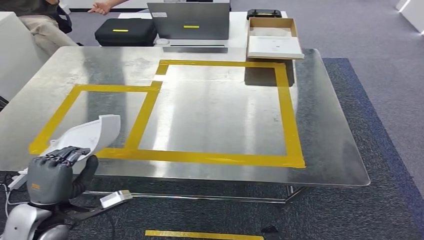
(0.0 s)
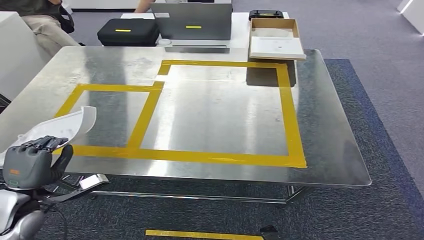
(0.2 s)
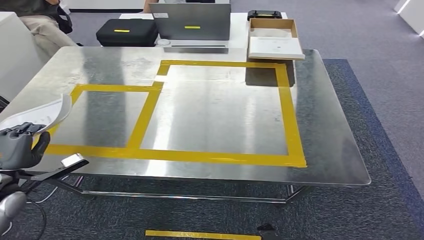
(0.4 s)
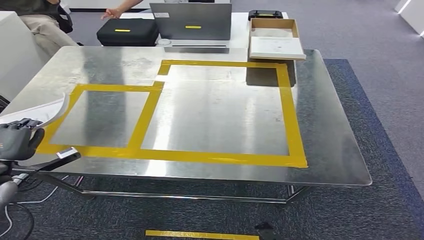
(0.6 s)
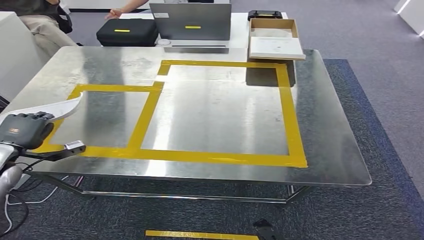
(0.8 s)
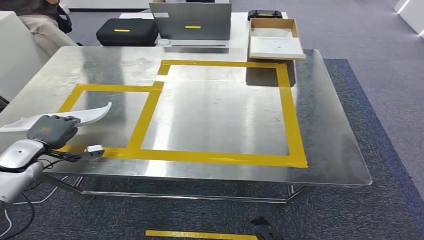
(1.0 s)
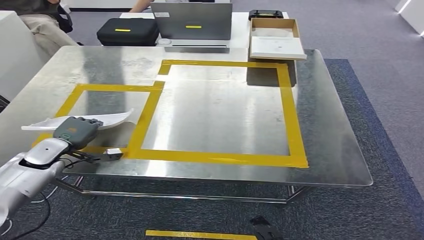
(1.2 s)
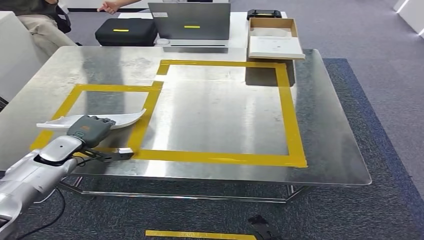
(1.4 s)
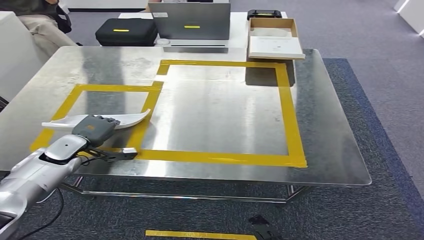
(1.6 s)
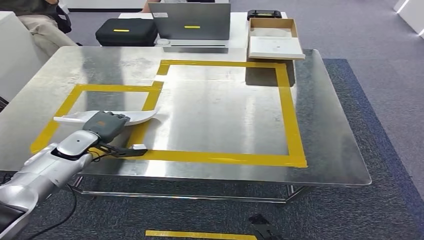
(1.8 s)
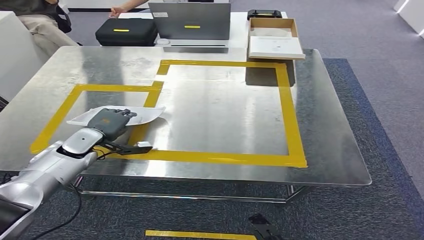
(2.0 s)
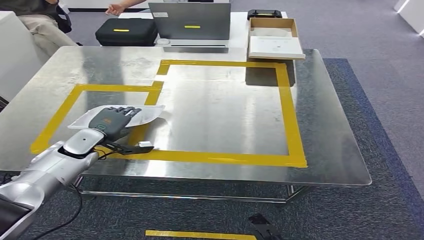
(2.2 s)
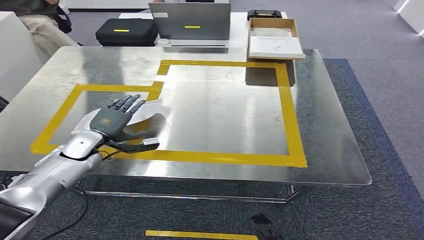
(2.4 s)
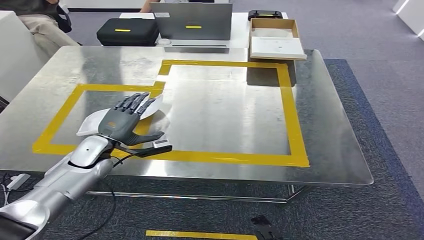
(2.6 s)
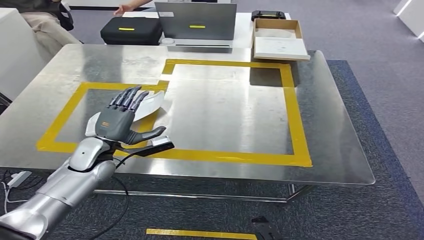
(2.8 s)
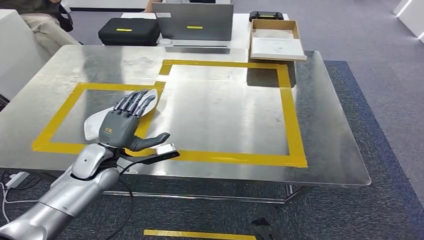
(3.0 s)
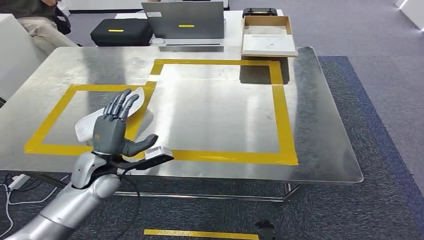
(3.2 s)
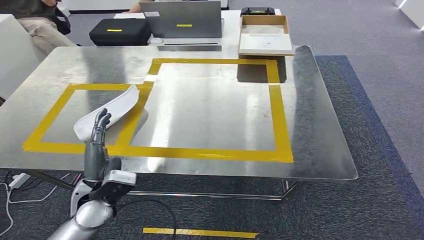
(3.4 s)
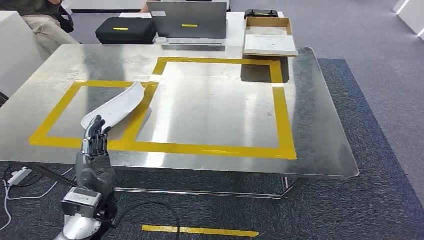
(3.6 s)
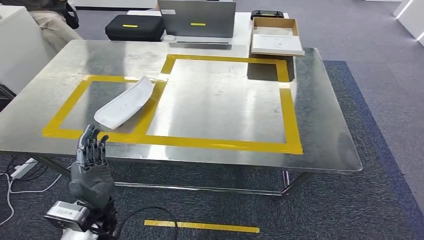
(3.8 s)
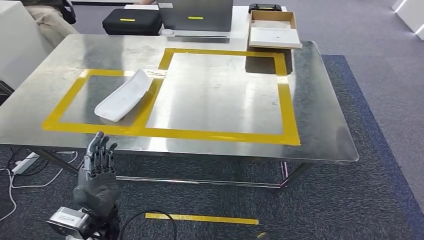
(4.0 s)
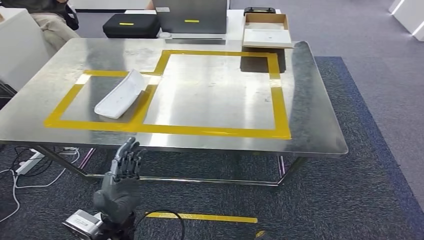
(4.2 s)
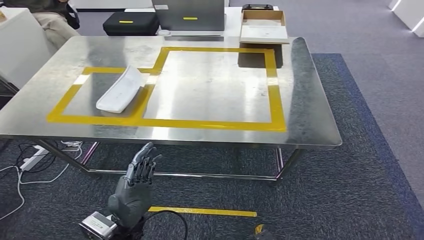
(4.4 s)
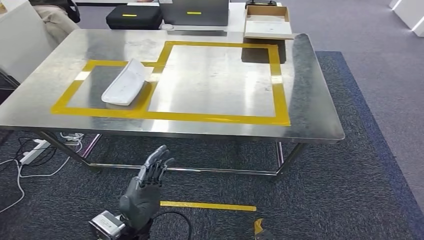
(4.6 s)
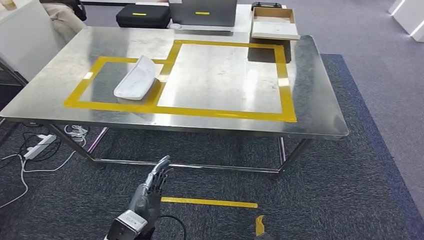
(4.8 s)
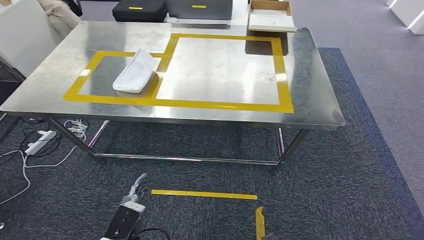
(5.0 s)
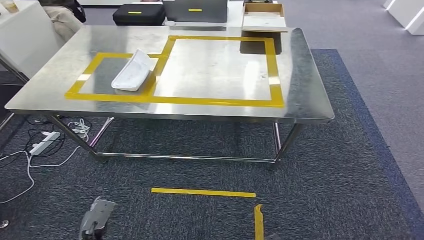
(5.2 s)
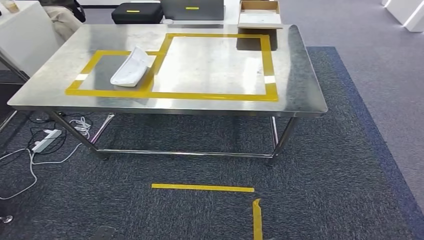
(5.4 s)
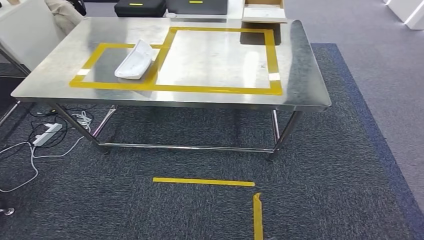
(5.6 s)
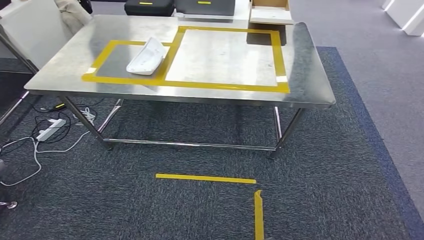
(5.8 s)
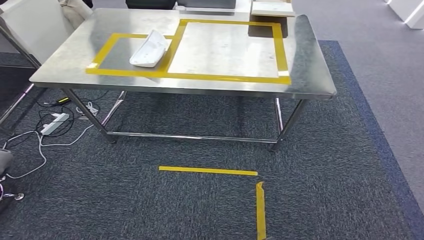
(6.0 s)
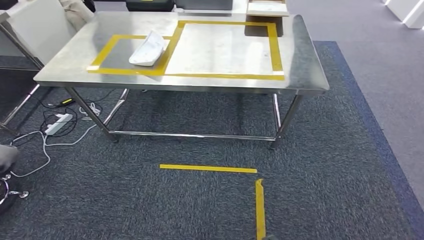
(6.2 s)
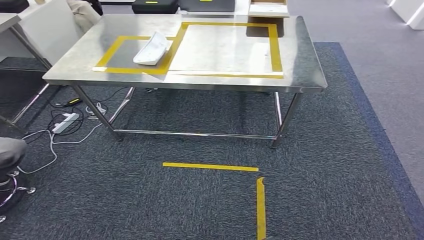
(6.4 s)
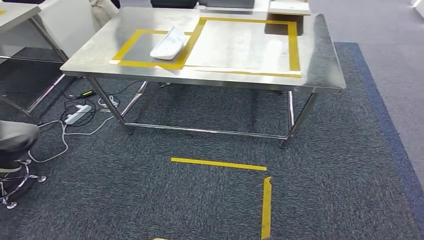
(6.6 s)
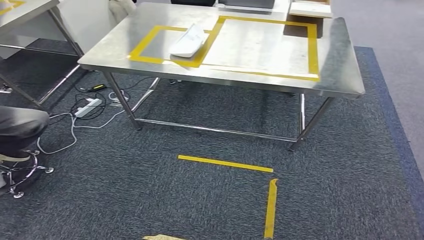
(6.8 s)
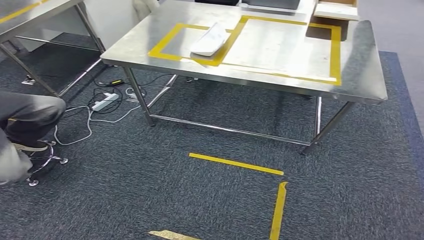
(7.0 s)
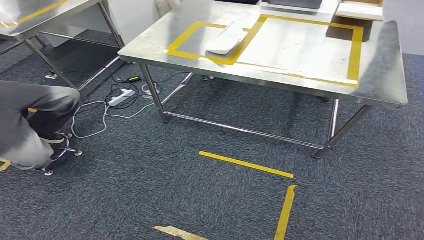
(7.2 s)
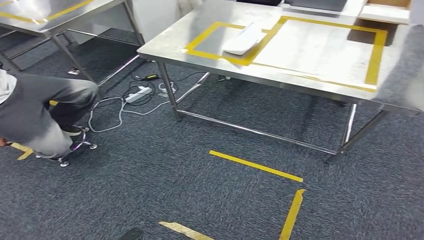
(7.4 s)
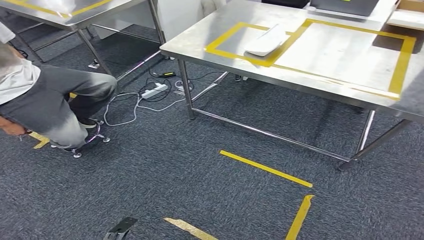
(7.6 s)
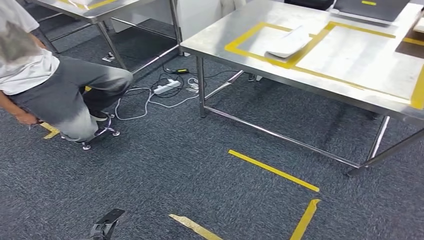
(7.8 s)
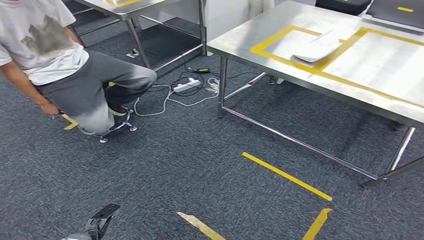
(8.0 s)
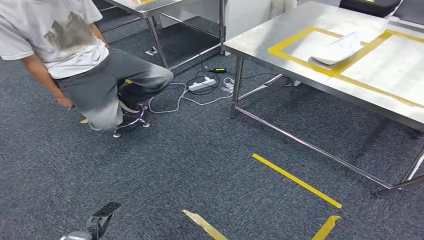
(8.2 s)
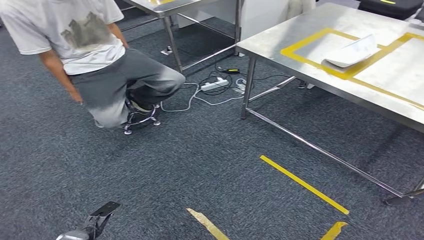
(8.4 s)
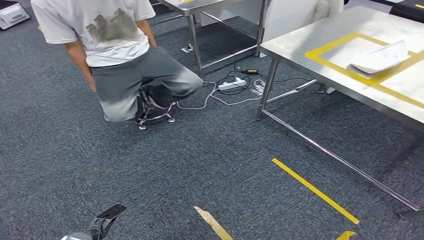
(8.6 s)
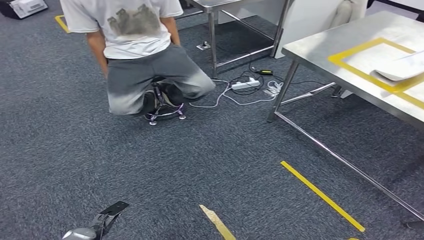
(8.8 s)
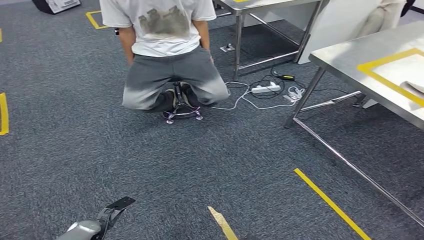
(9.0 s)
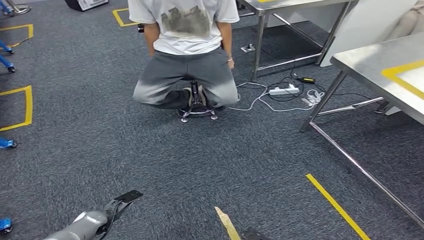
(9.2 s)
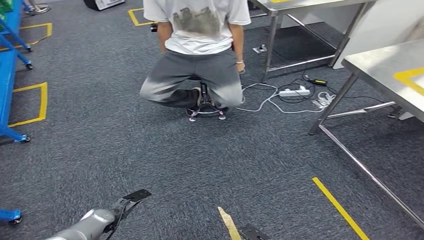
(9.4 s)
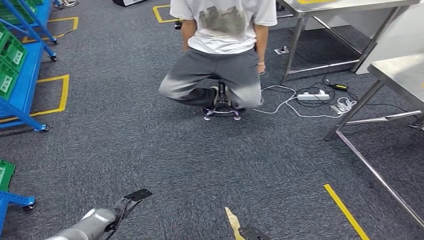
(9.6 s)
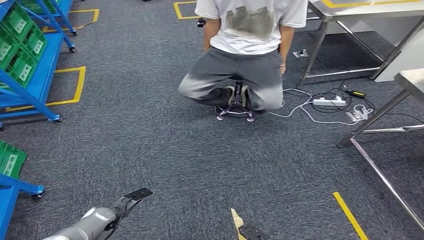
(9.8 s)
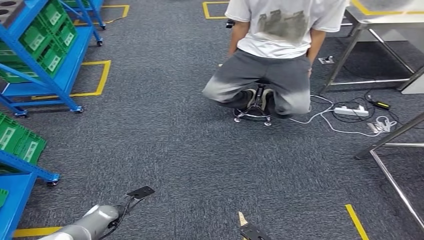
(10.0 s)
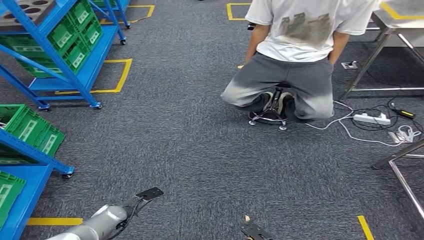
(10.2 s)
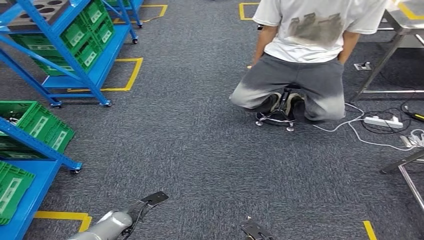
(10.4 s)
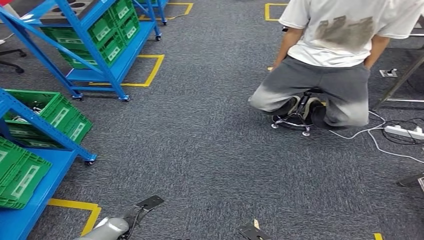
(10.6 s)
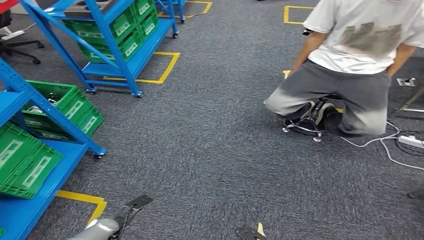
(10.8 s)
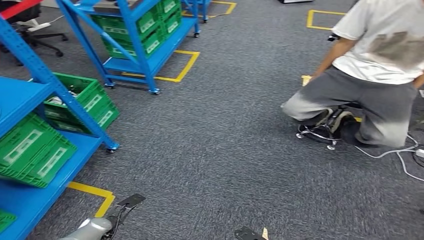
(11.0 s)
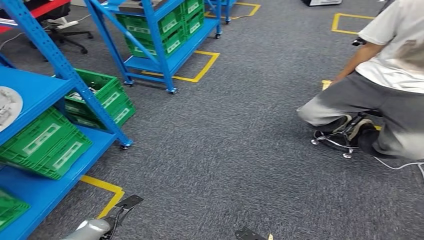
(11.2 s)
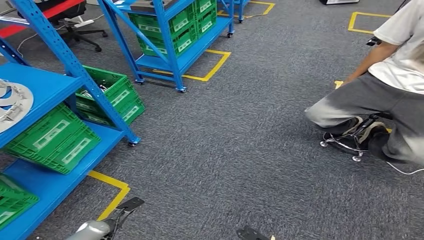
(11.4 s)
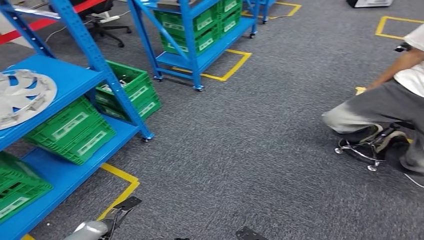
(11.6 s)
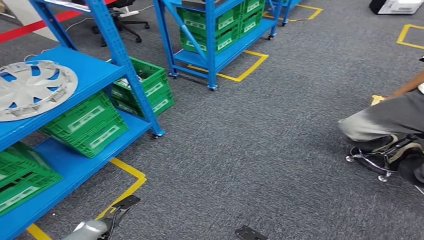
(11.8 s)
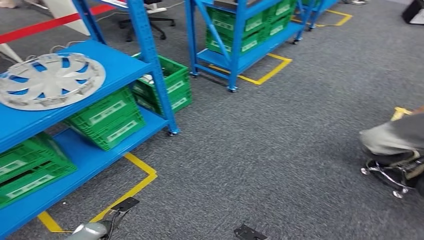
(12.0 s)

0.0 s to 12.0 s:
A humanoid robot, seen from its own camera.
Step, 0.0 to 5.8 s: Insert the small parts into the corresponding holes on the workbench.
0.0 to 1.6 s: The left hand heads forward, covering about 20 cm.
1.6 to 3.0 s: The left hand goes some 15 cm to the right and backward.

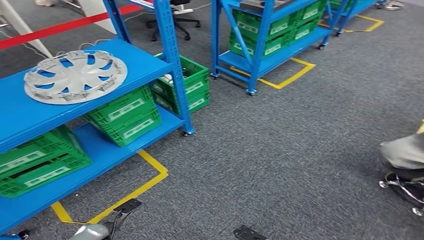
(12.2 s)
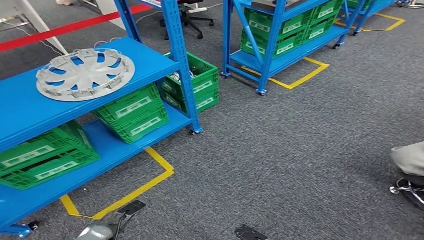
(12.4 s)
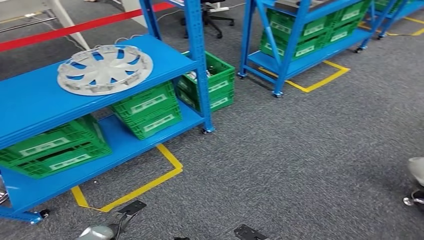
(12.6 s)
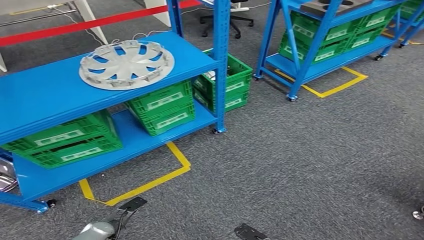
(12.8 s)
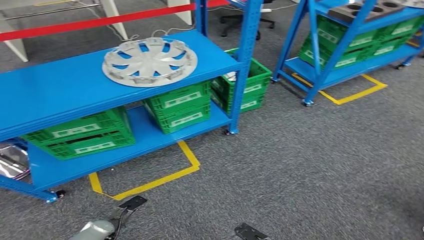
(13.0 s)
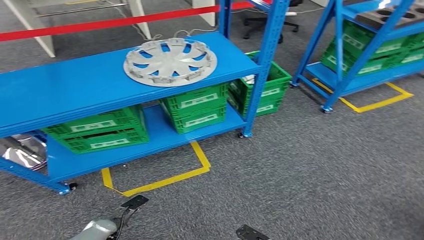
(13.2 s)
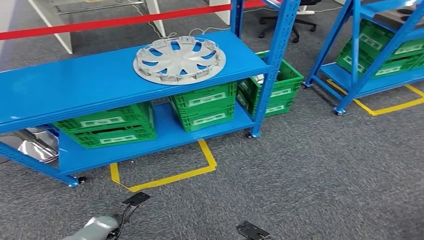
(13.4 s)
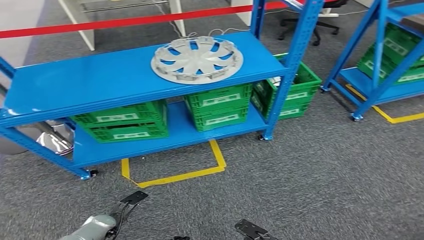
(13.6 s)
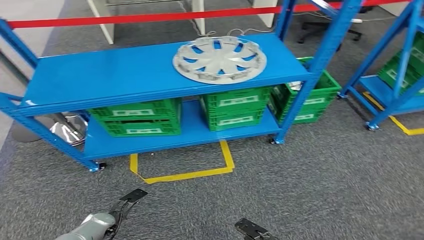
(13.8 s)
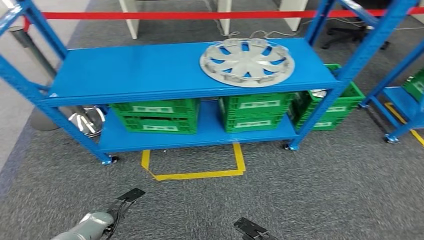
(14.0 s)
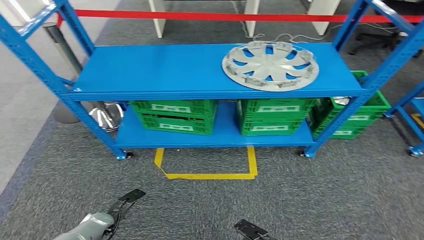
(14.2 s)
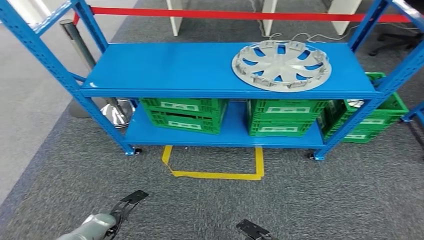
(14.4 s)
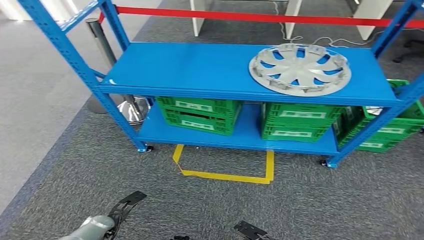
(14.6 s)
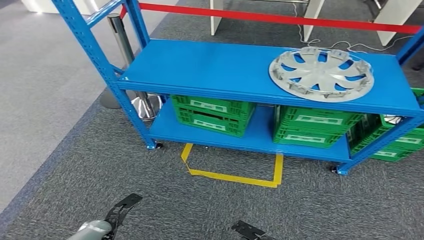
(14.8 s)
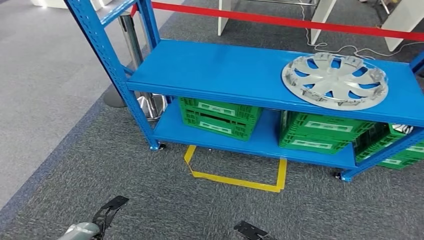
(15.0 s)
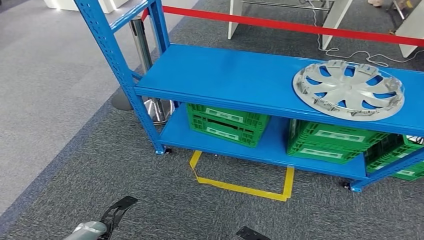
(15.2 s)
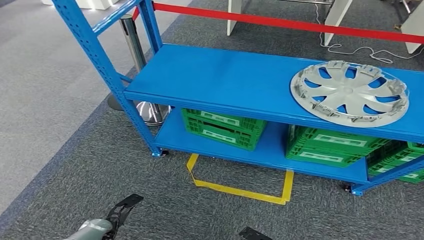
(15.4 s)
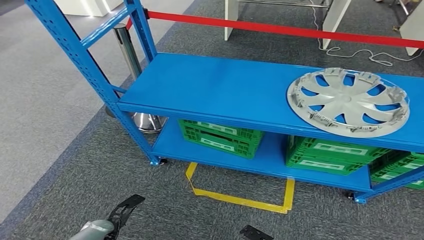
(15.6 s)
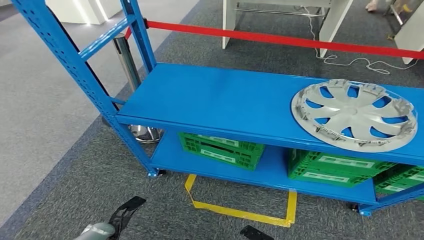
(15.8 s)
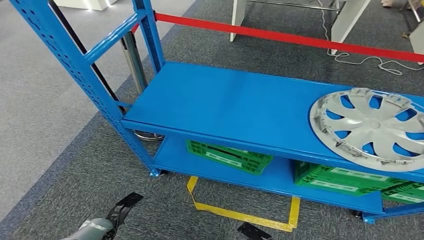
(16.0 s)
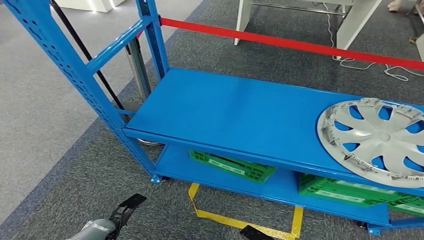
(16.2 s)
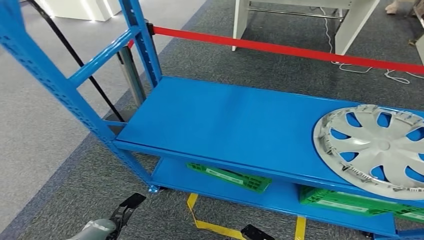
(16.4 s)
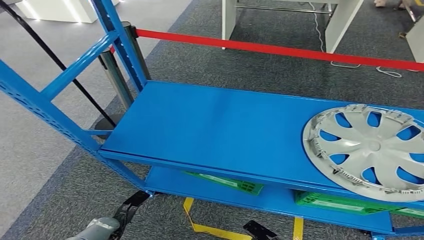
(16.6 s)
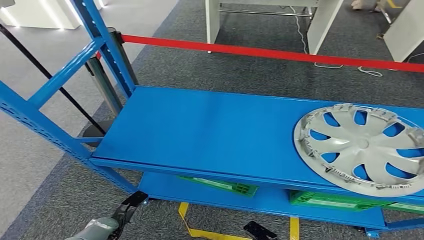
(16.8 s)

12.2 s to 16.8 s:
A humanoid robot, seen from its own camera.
Step, 12.2 to 16.4 s: Move to the initial position at the workbench.
